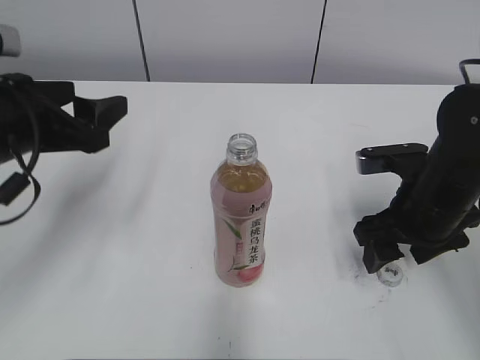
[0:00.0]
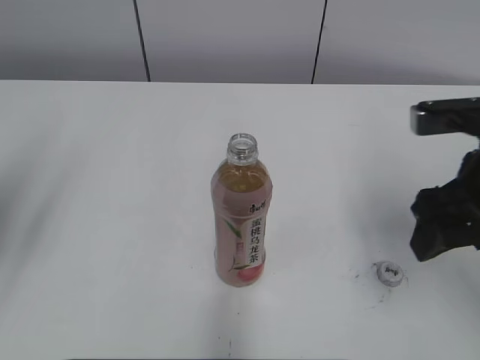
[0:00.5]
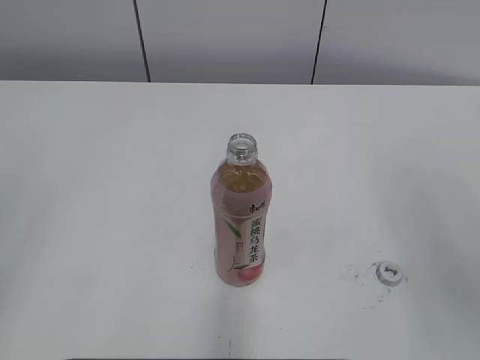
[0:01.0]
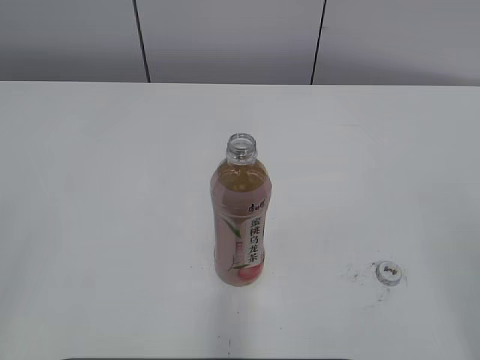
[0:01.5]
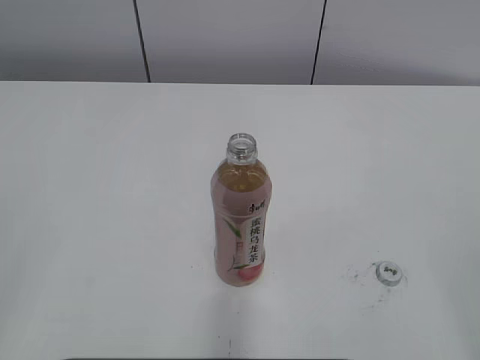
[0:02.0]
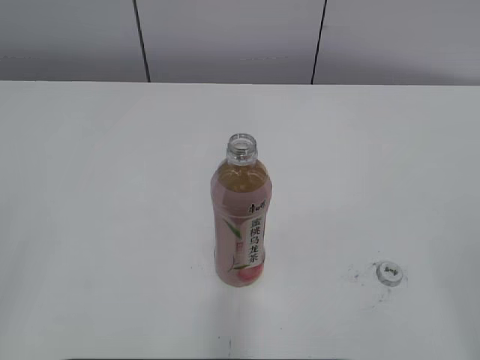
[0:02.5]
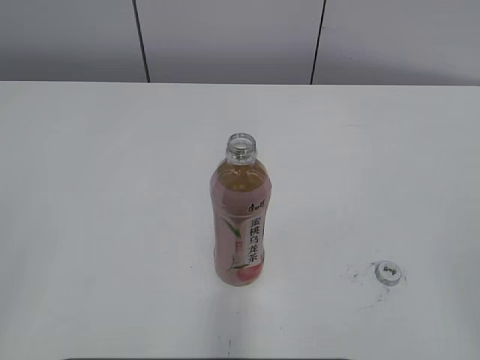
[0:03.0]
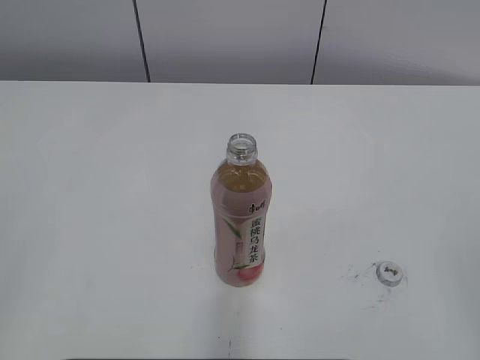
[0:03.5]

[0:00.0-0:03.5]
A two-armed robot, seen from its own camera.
0:00.0 to 0:02.0: The right gripper goes about 30 cm backward and upward; the left gripper moves backward, approximately 25 cm.

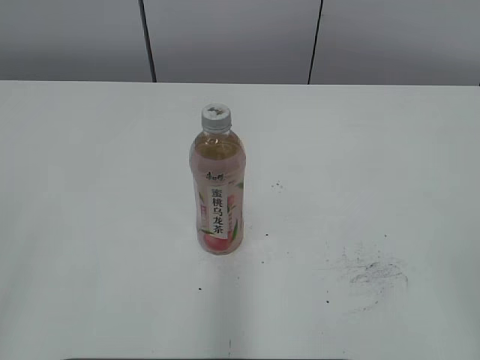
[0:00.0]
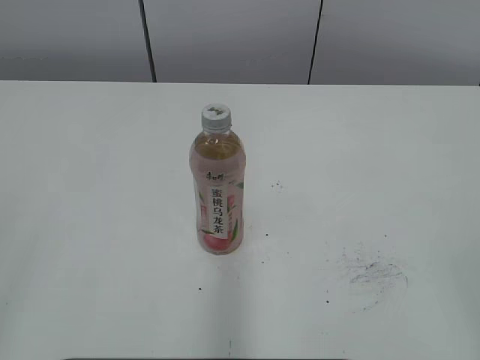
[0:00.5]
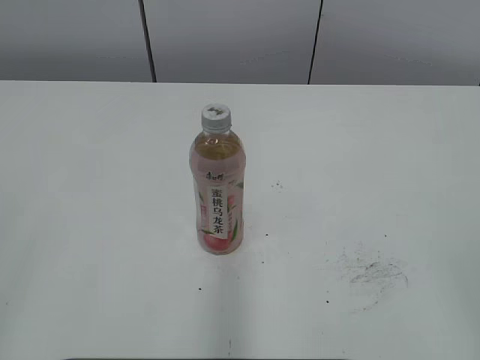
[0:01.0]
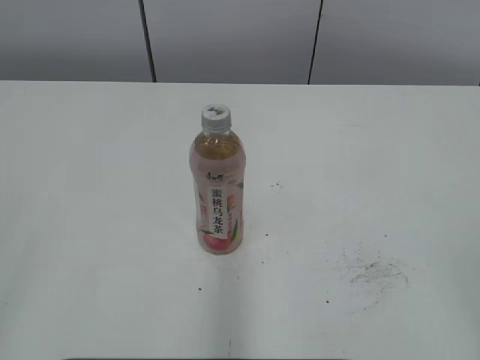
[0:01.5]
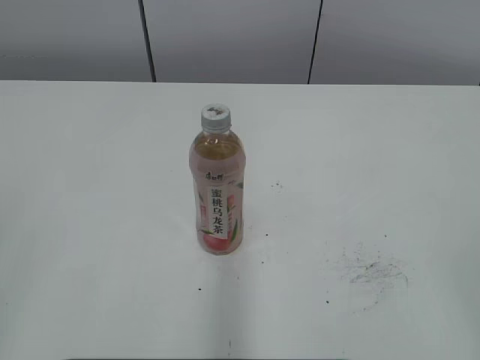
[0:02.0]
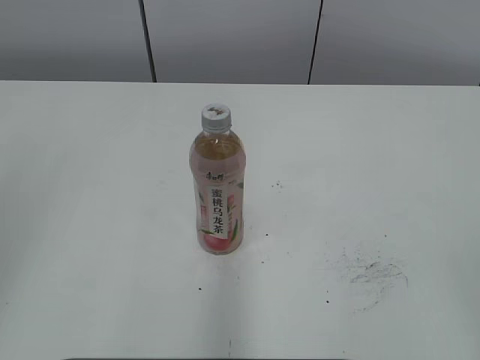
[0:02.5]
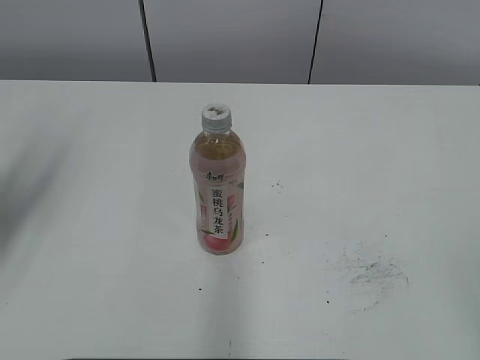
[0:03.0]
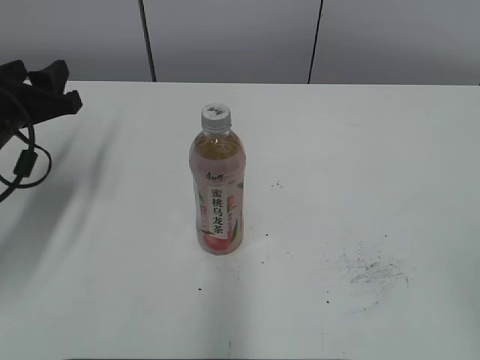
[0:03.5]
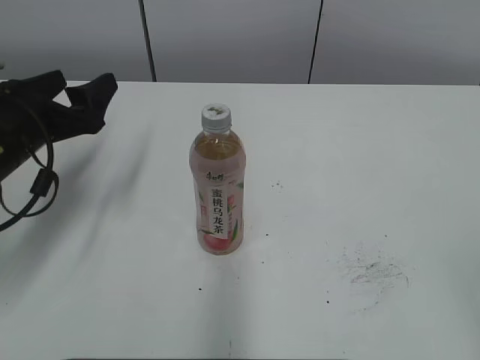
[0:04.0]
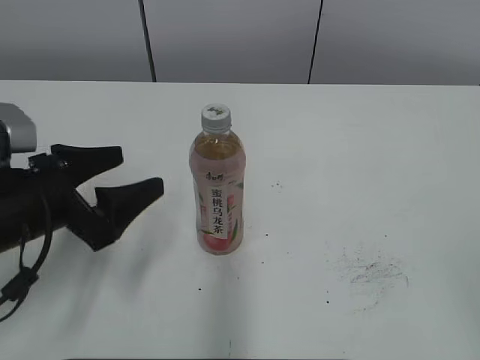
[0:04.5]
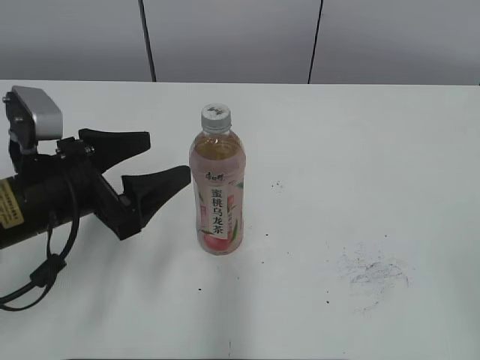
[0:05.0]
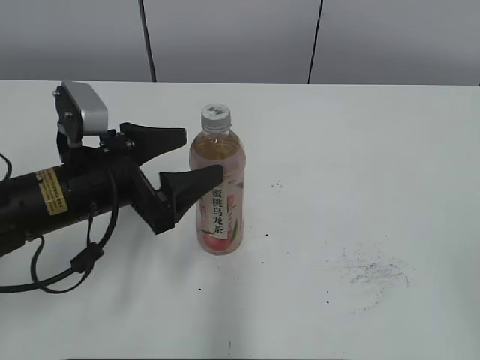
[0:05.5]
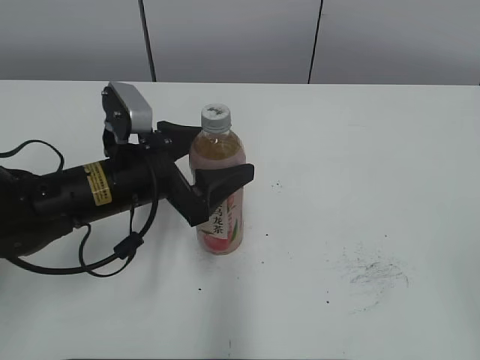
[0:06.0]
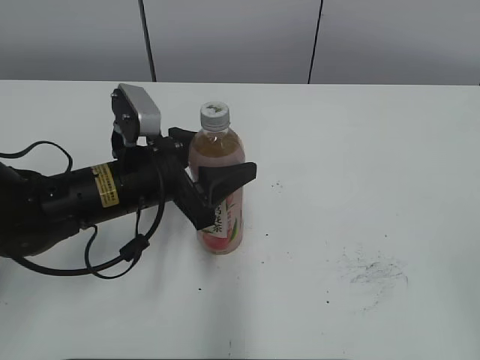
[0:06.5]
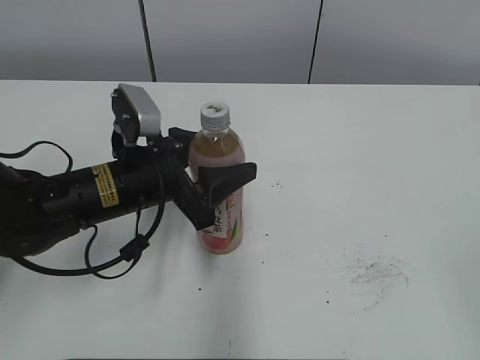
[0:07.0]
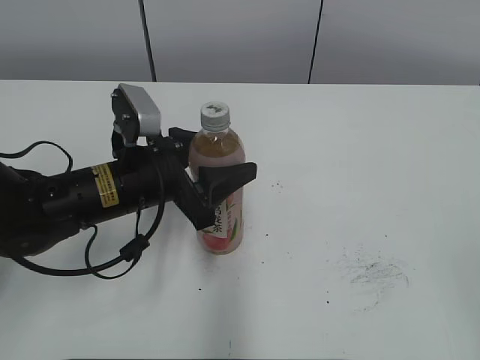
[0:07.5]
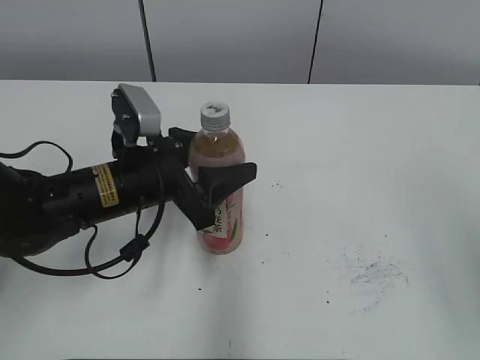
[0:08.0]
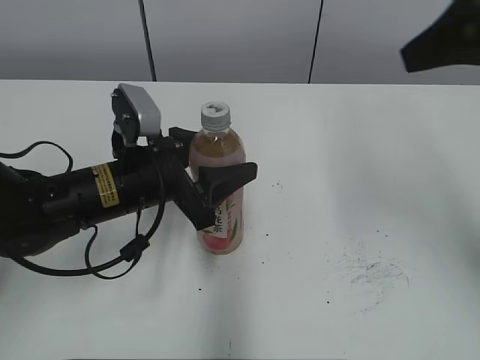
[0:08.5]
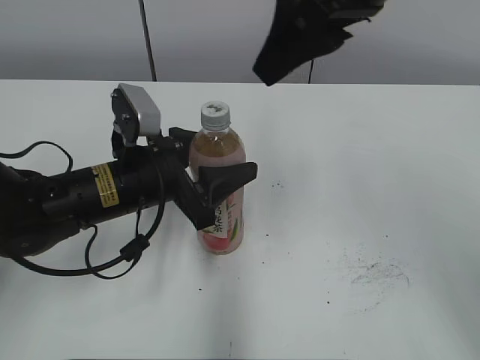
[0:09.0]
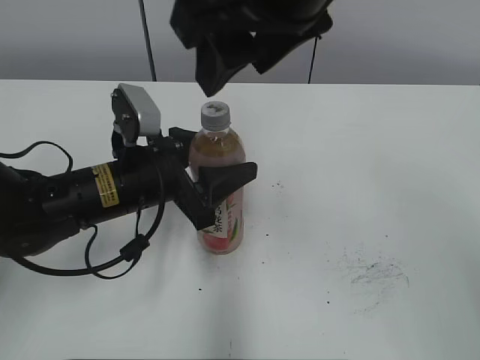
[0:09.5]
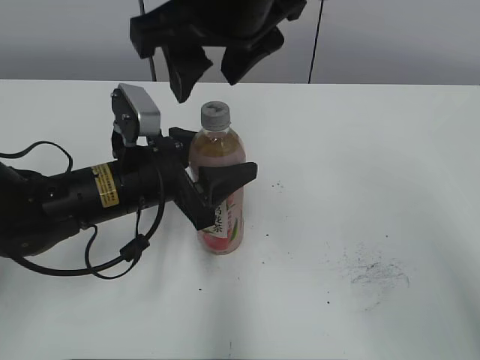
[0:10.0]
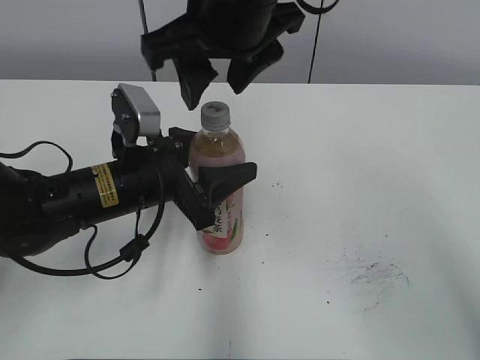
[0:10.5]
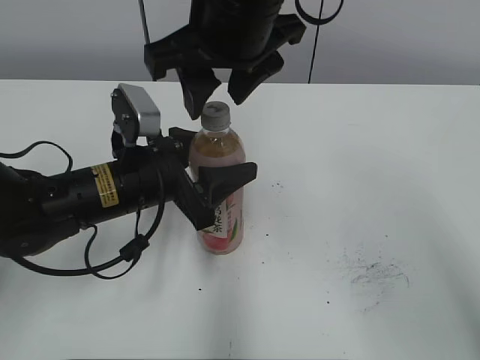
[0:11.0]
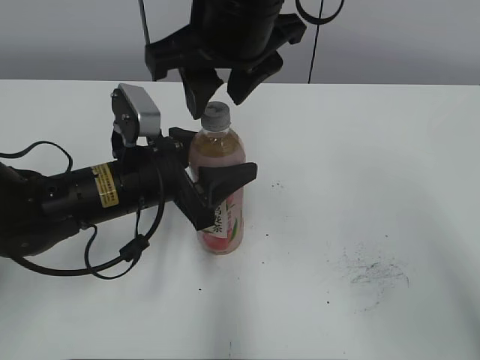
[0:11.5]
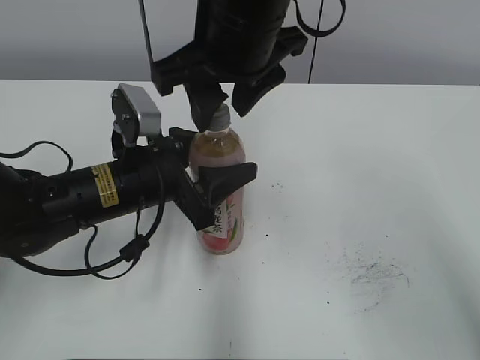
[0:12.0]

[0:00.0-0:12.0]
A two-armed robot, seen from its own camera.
Step, 0:00.0 to 0:06.5: Grab the Peach Oolong Tea with the left hand.
0:02.0 to 0:04.0: The left gripper goes approximately 30 cm forward and downward, and opens.
0:04.0 to 0:06.0: The left gripper is displaced to the right by approximately 10 cm.
0:06.0 to 0:08.0: The right gripper travels forward and upward by roughly 10 cm, while the left gripper closes its fingers.
0:08.0 to 0:10.0: The right gripper is displaced to the left and forward by about 35 cm.
0:10.0 to 0:12.0: The grippers make only small movements.

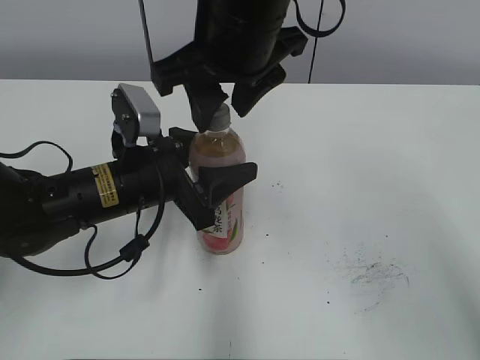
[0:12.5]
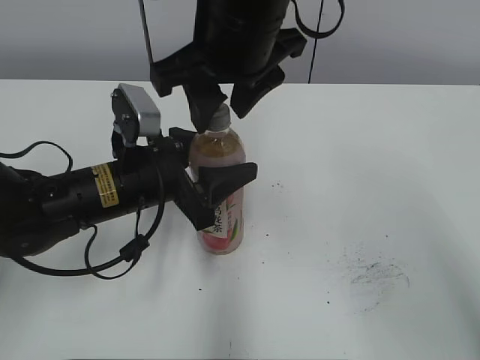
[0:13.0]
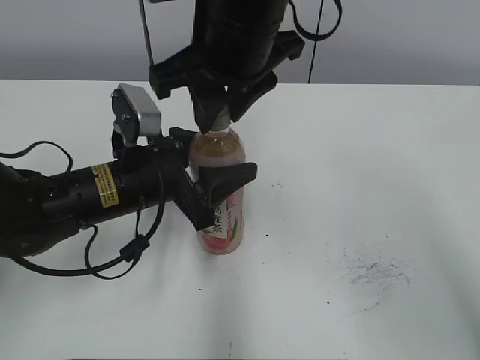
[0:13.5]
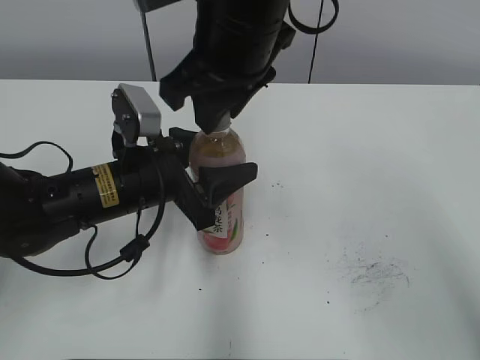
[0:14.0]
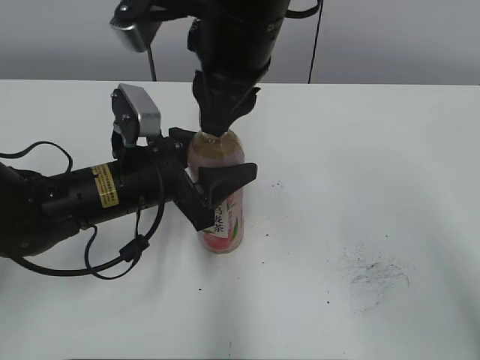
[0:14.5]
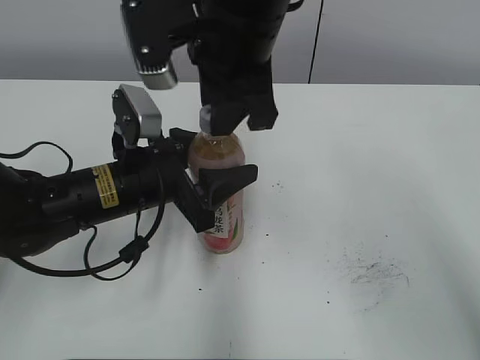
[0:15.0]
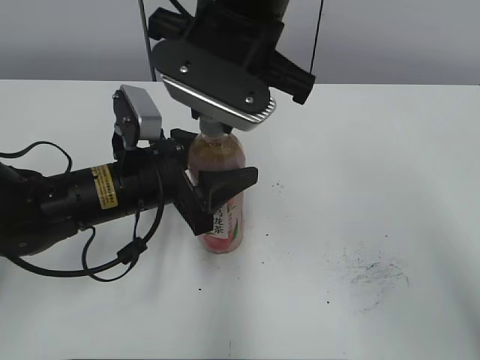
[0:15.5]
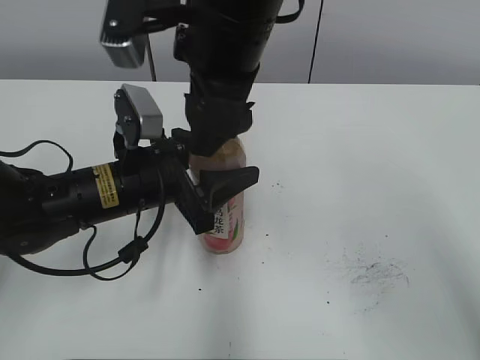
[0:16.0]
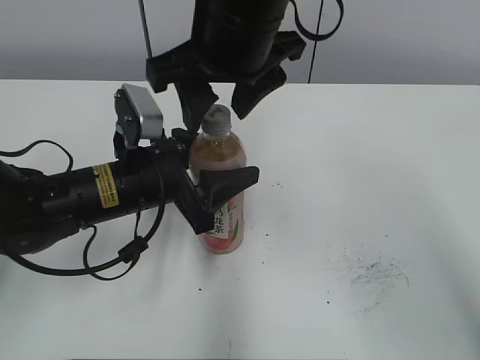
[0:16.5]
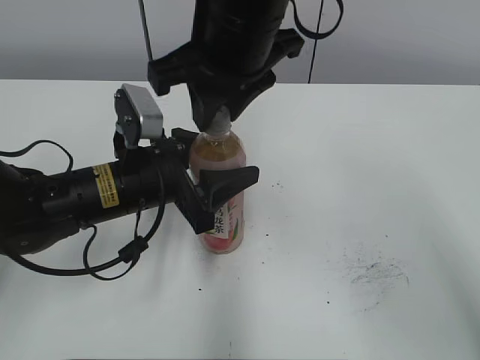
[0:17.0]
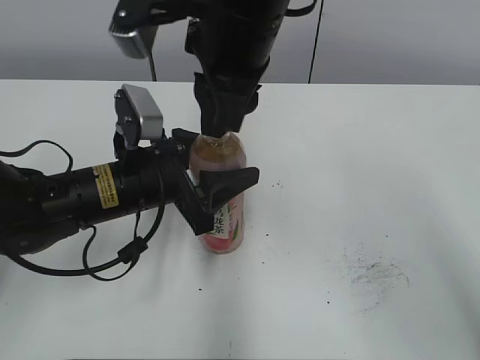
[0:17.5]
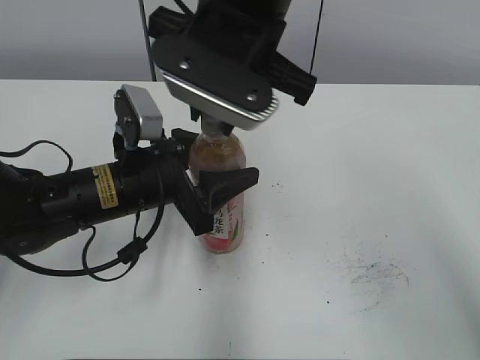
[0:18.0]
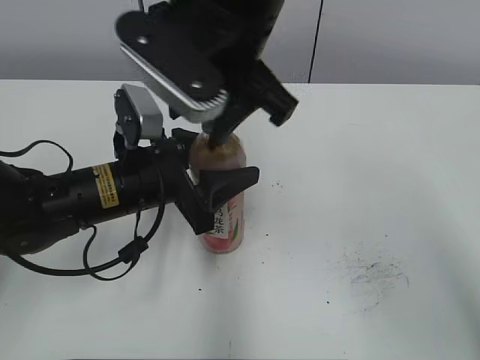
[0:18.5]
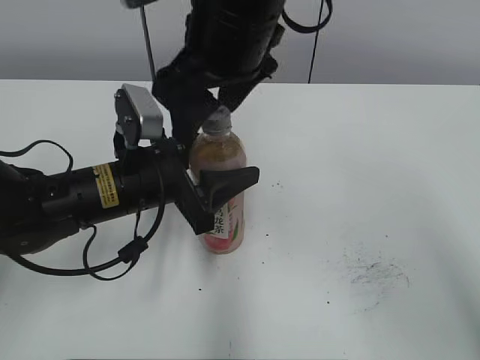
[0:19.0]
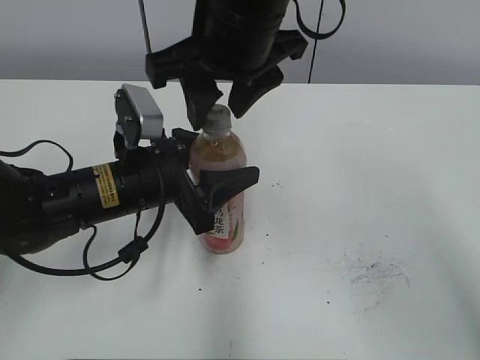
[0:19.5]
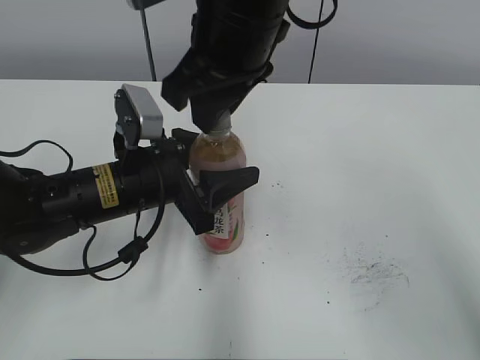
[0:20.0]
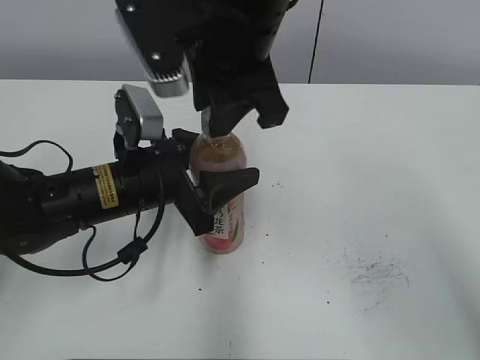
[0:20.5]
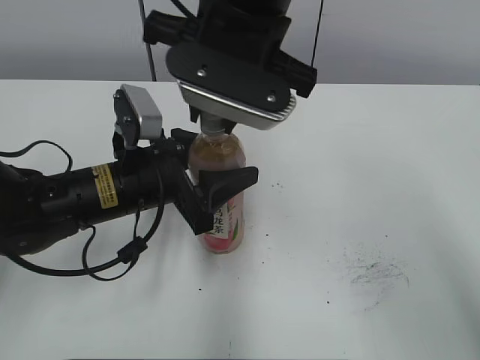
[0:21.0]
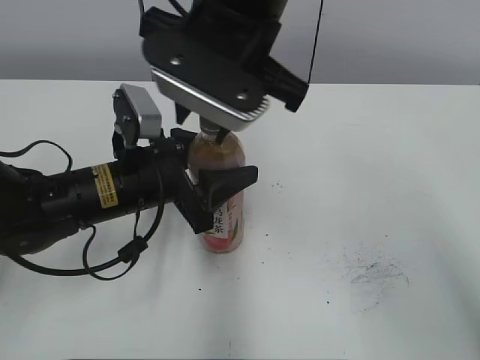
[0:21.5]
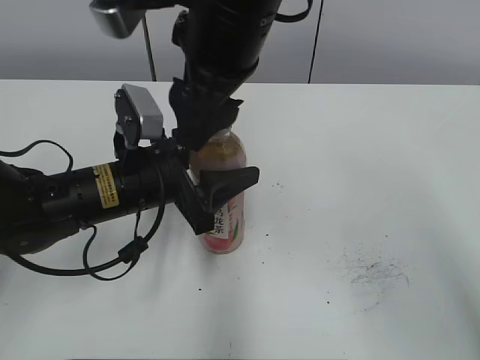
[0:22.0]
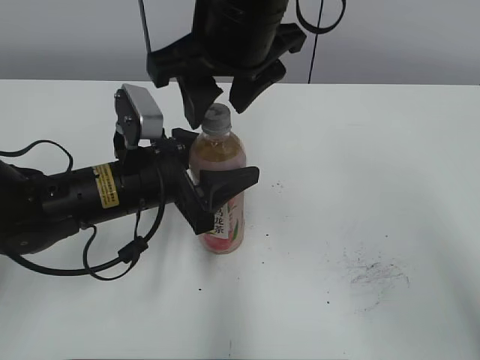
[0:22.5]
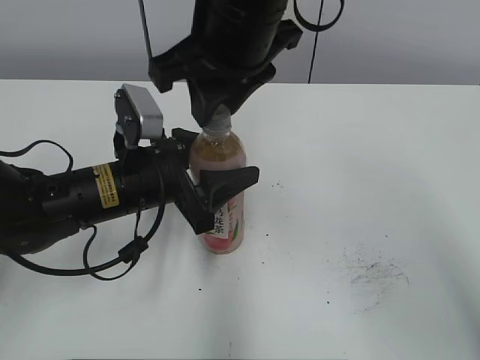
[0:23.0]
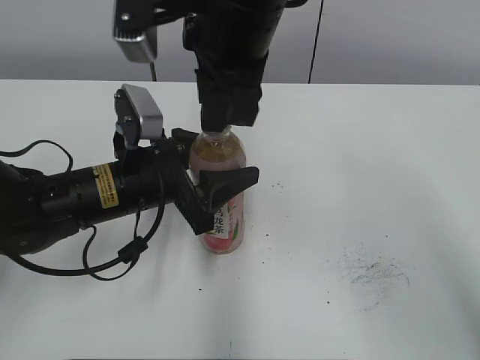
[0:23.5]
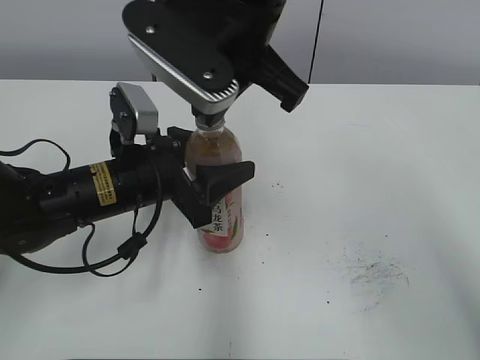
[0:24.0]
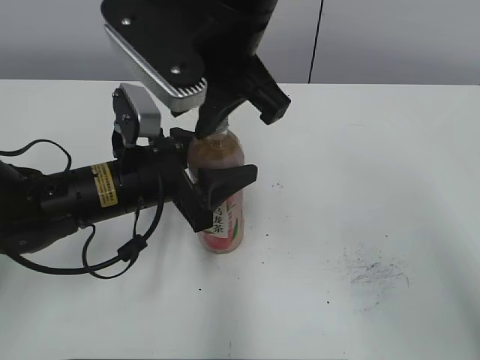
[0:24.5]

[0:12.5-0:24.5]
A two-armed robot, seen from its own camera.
0:12.5 to 0:14.5: The right gripper closes up.
0:14.5 to 0:16.5: The right gripper opens its fingers.
0:16.5 to 0:18.5: The right gripper closes and opens again.
0:18.5 to 0:20.5: The right gripper closes up.
0:20.5 to 0:22.5: The right gripper opens its fingers.
0:22.5 to 0:24.5: The right gripper closes up.
